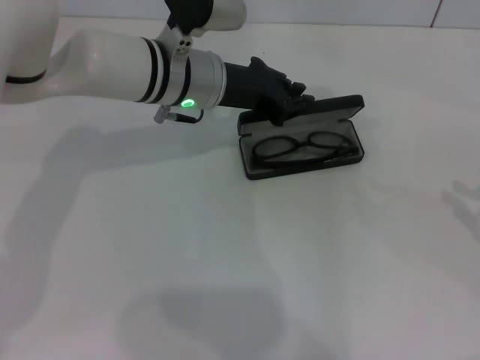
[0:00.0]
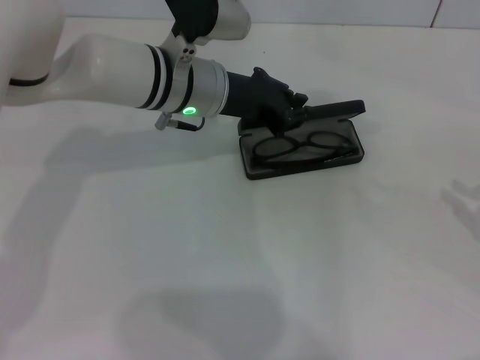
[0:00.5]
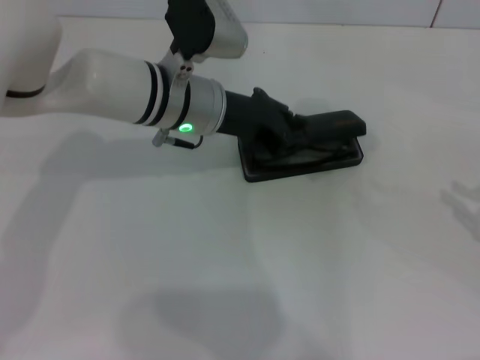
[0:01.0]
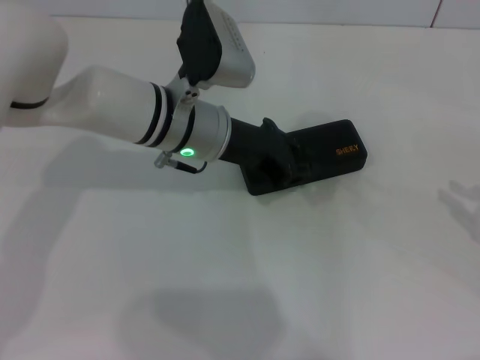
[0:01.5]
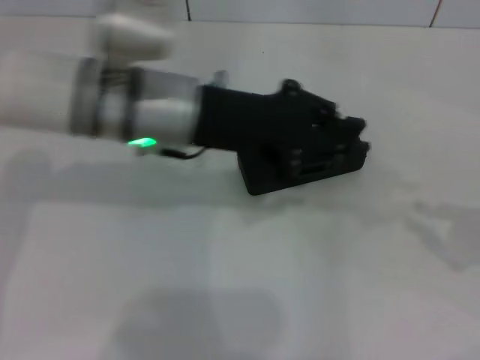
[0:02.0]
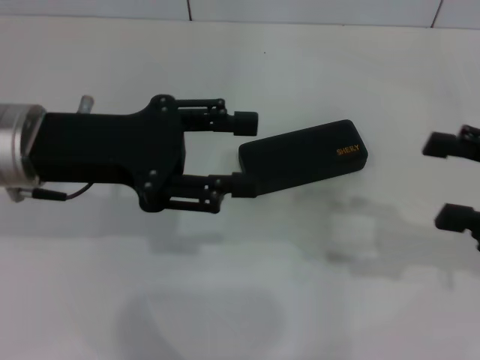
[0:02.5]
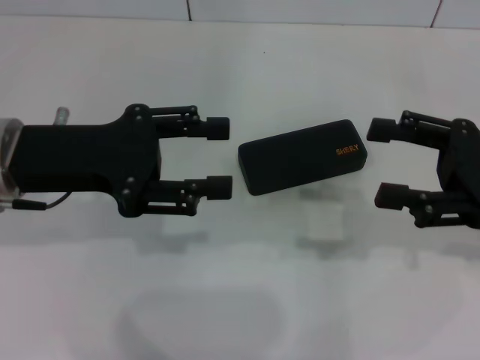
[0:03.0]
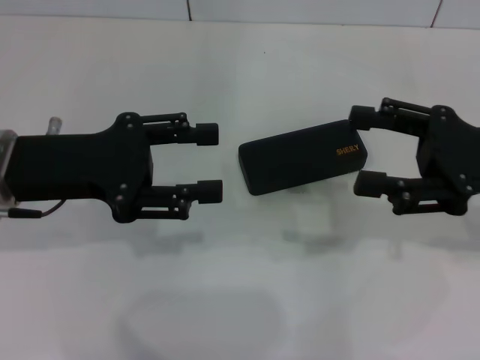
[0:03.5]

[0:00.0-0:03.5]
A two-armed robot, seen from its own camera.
0:00.0 to 0:02.0: The left gripper moves backward, roughly 10 cm.
0:02.0 to 0:03.5: The right gripper is displaced to the left and forward by roughly 15 cm, and opens; the left gripper travels to the left and backward by roughly 15 cm, and opens its fingers.
